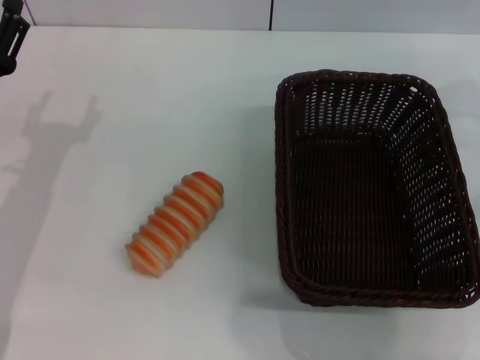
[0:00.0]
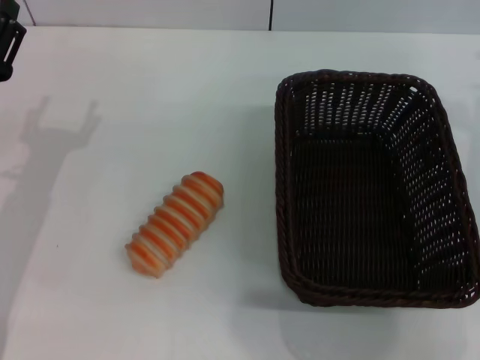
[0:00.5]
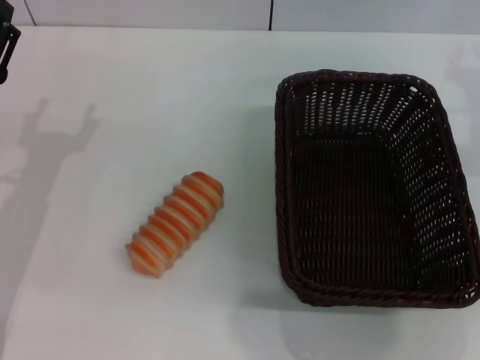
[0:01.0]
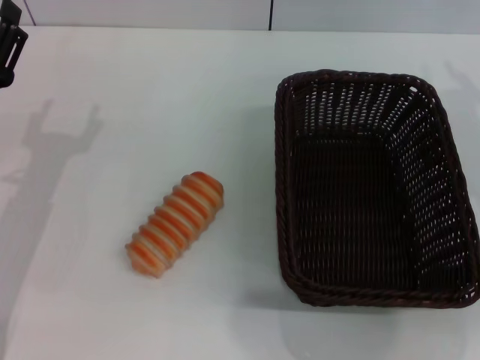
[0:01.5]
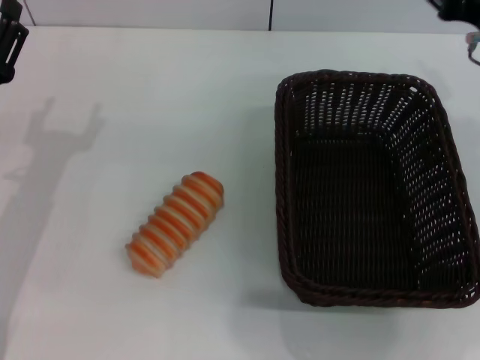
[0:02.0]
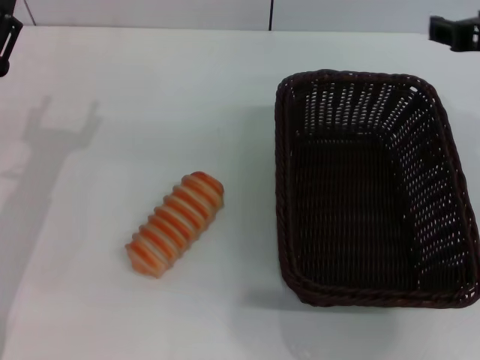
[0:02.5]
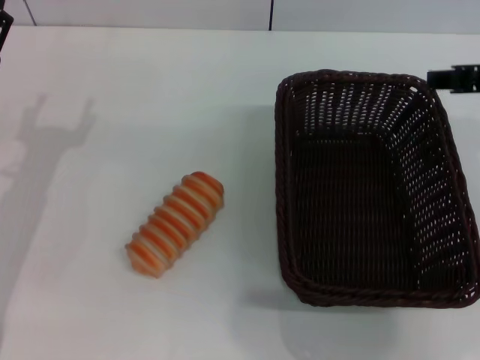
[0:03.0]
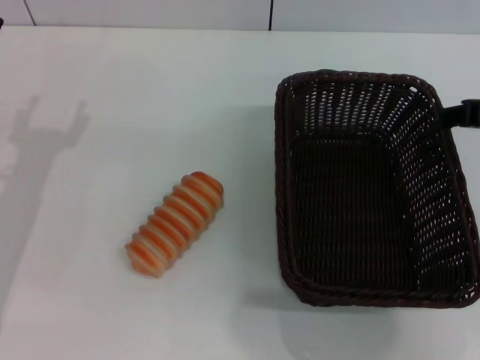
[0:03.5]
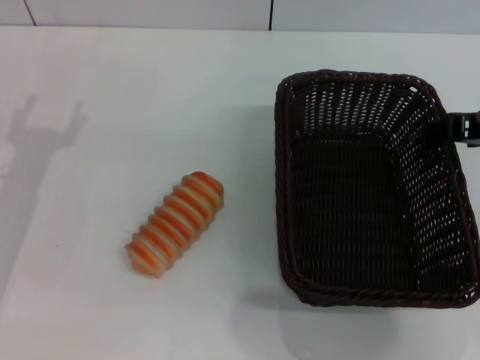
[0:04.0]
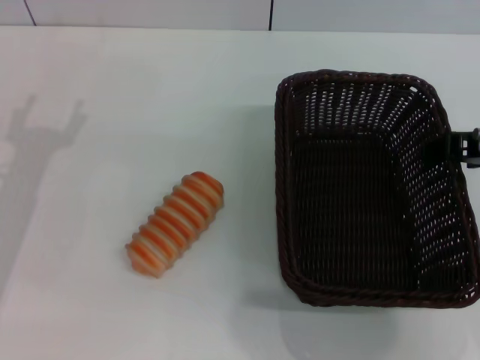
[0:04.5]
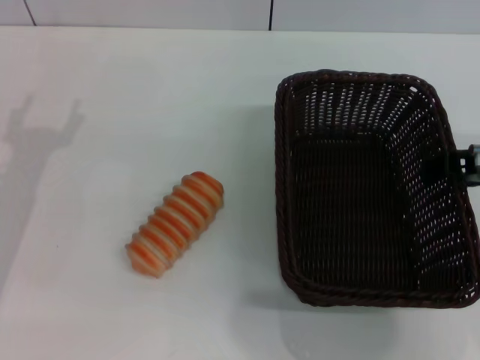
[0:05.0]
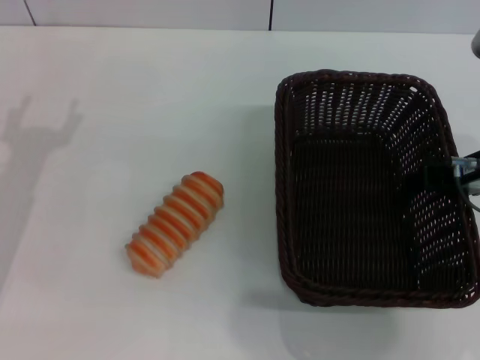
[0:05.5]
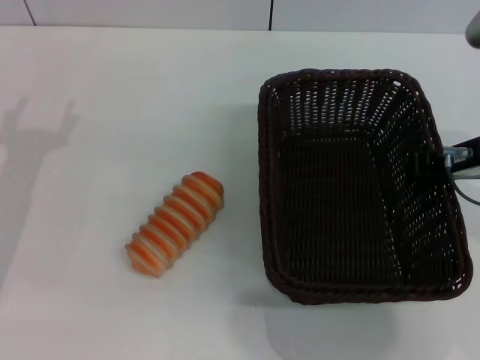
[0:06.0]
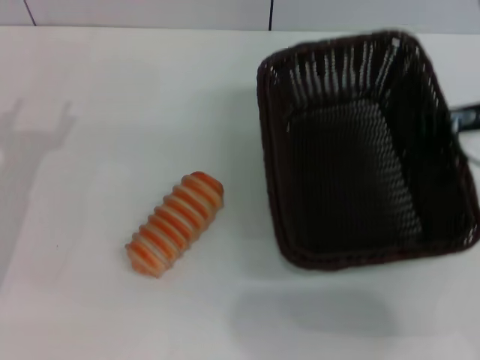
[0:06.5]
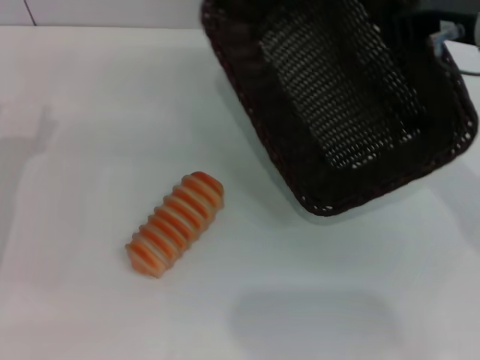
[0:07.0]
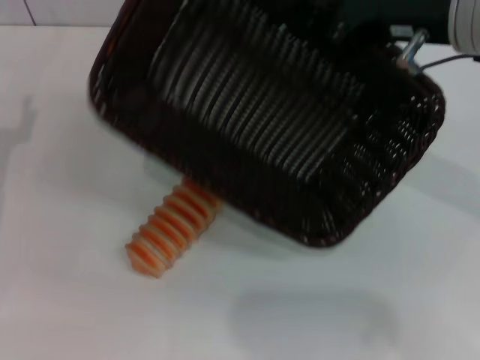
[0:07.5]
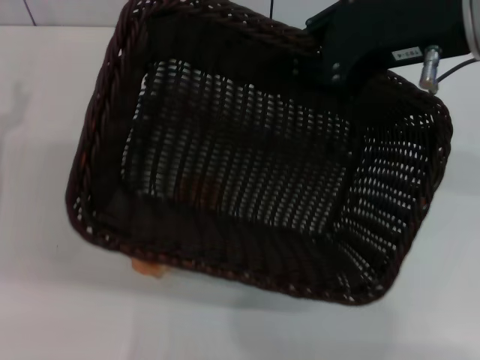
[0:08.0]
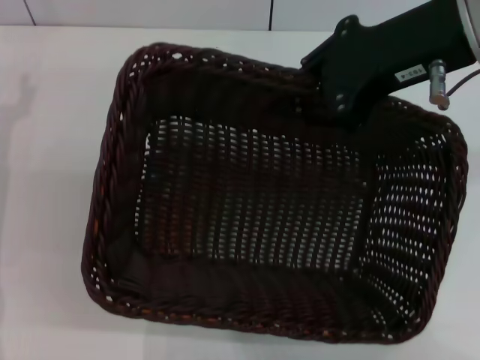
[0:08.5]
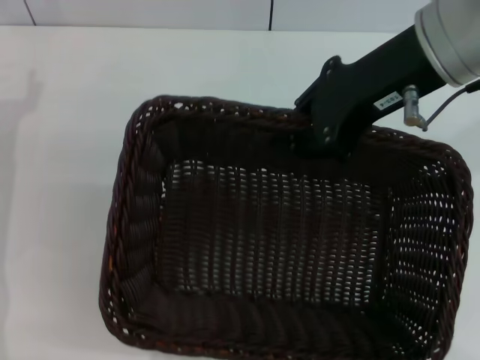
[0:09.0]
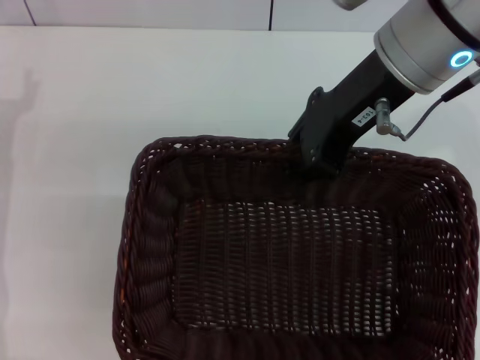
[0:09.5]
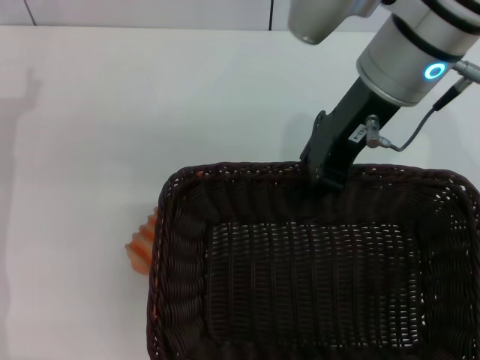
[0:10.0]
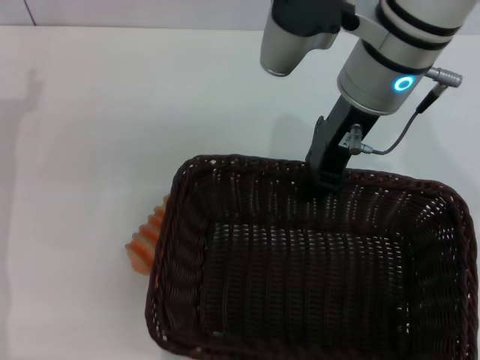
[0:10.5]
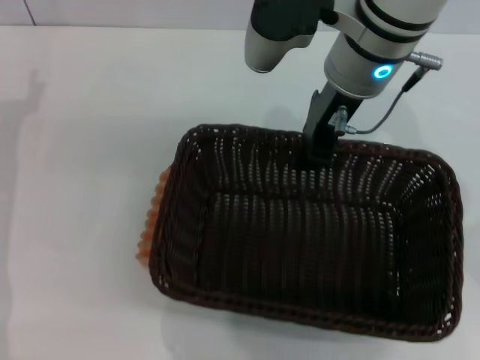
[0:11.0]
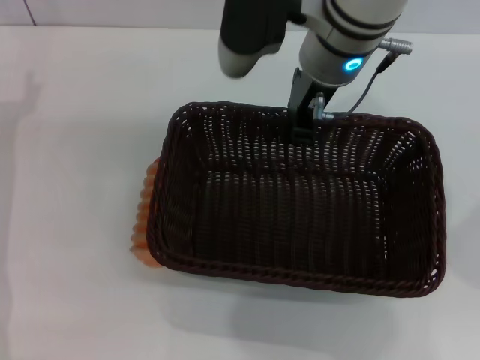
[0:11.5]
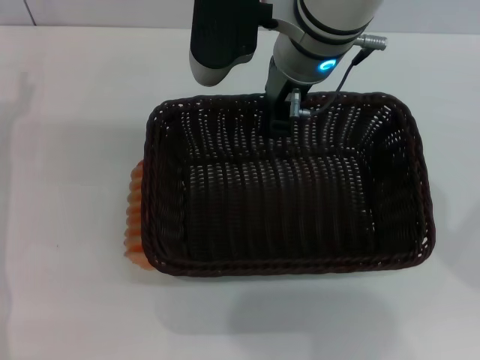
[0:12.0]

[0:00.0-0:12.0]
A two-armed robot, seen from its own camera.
Step, 0:00.0 to 0:07.0: Pick up the dark basket with the right gripper.
0:00.0 to 0:02.0: The right gripper is displaced backward and to the left by some 10 cm, and opens up.
0:02.0 to 0:04.0: The right gripper ends up about 5 cm from where it was.
0:04.0 to 0:06.0: The right gripper closes.
0:06.0 to 0:08.0: The right gripper goes roughly 10 cm upward, and closes up.
0:08.0 to 0:10.0: The right gripper goes approximately 5 cm to the left.
0:10.0 to 0:12.0: The right gripper shifts about 5 cm to the left.

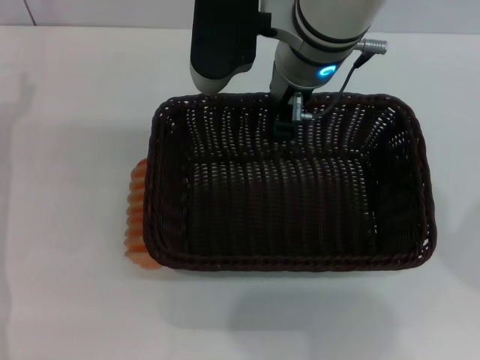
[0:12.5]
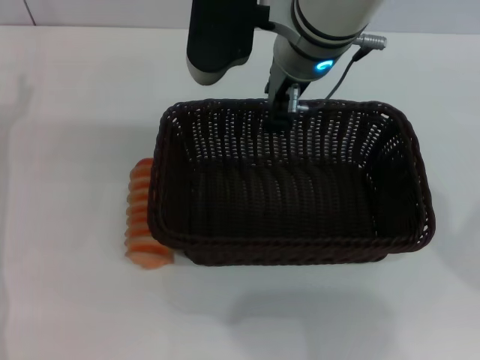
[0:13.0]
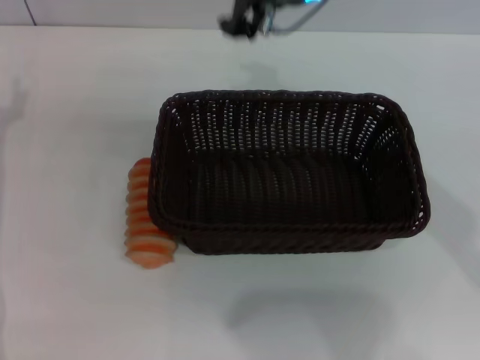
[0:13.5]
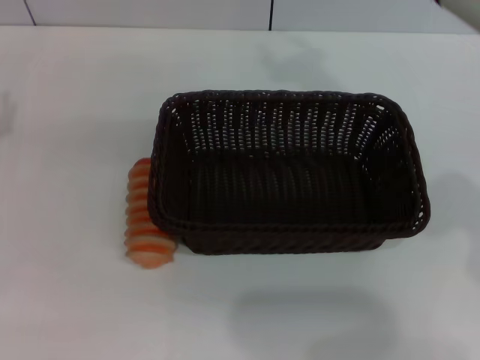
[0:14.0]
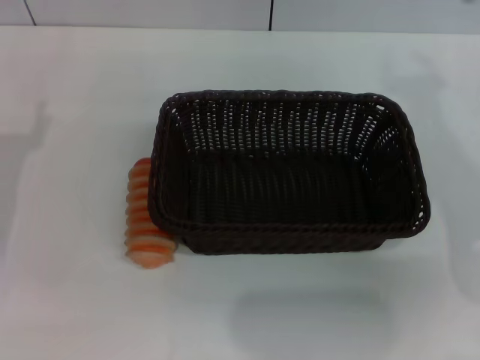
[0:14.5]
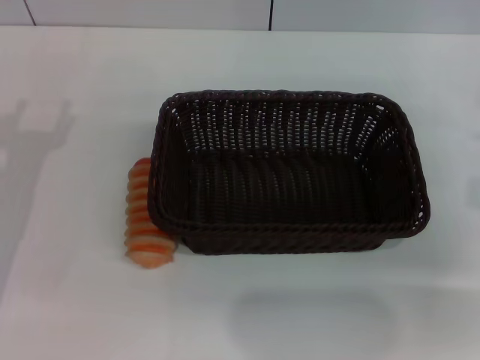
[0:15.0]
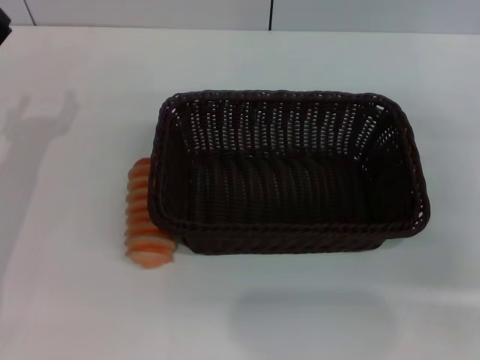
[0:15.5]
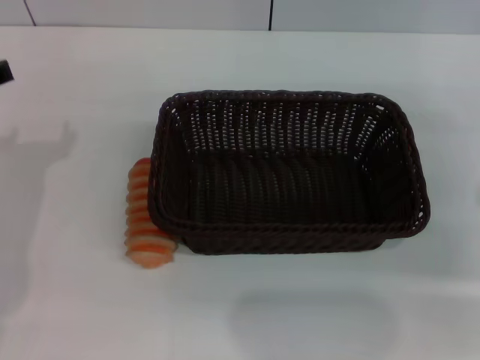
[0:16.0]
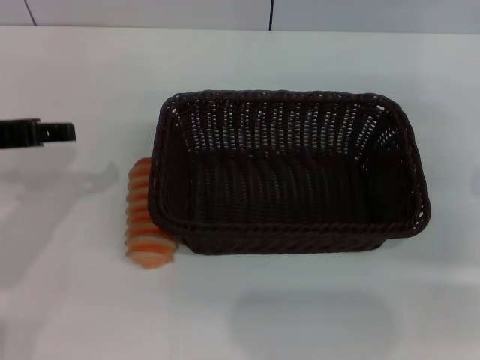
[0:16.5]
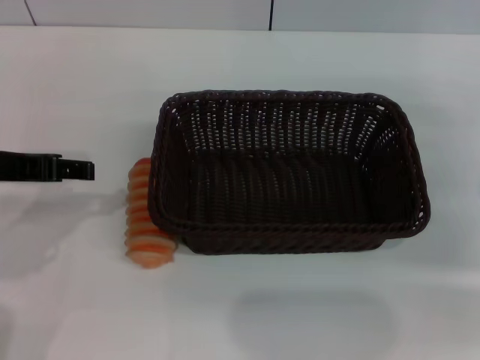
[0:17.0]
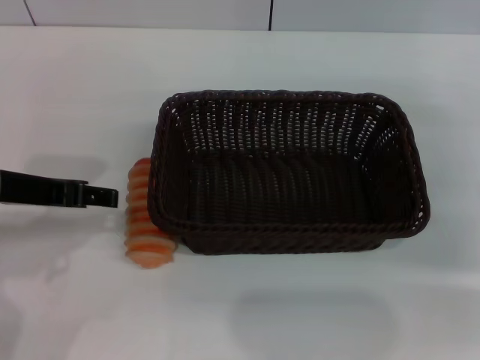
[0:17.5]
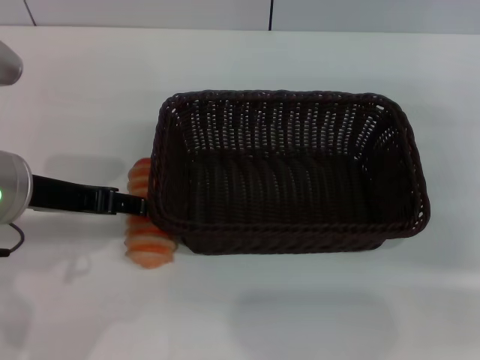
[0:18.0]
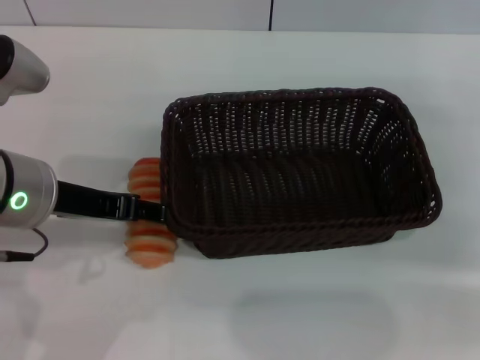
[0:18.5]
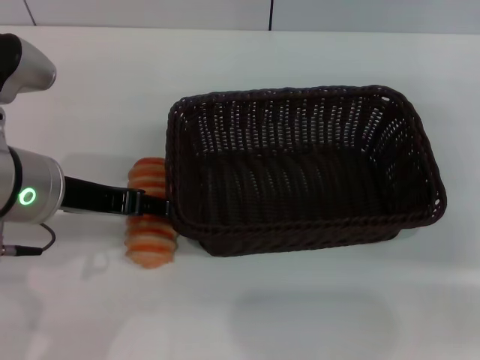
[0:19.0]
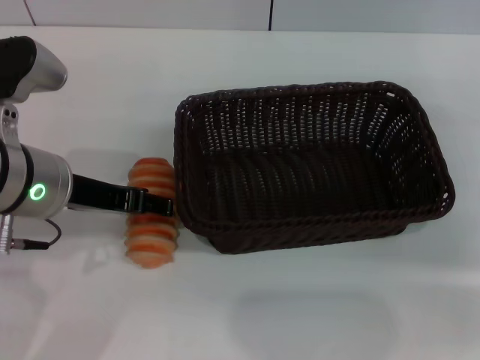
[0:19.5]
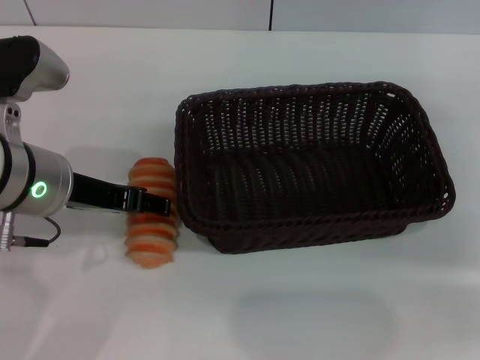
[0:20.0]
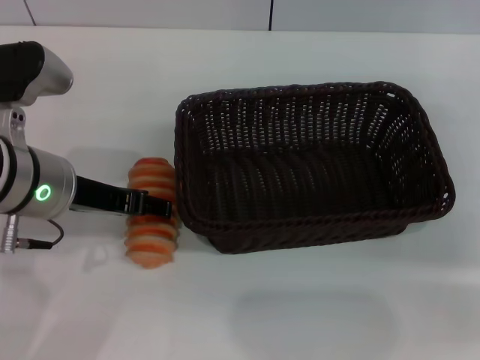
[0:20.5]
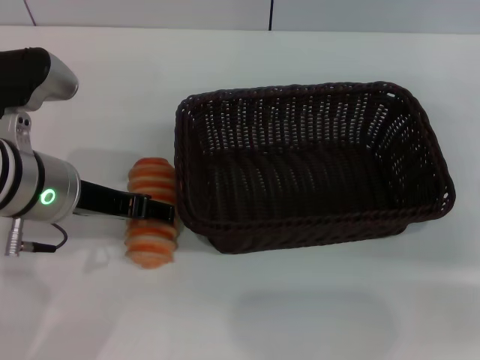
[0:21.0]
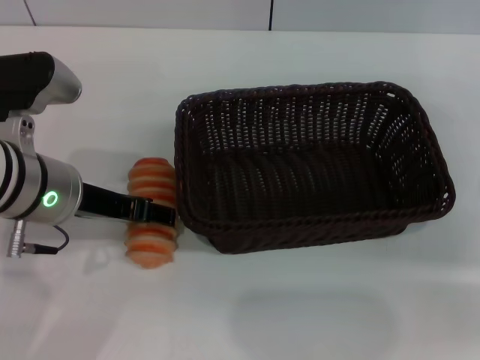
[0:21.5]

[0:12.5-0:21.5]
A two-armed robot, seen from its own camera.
0:12.5 to 0:14.5: The left gripper ends up about 5 cm from where it was; the right gripper moves to the right, about 20 cm.
0:14.5 to 0:17.0: The right gripper travels to the right and downward by some 10 cm; the left gripper travels upward and to the right by roughly 15 cm.
0:17.0 to 0:19.5: The left gripper shifts some 5 cm to the right.
0:19.5 to 0:21.5: There are only small adjustments of the grippers.

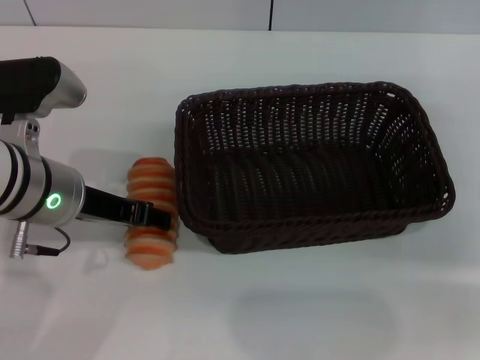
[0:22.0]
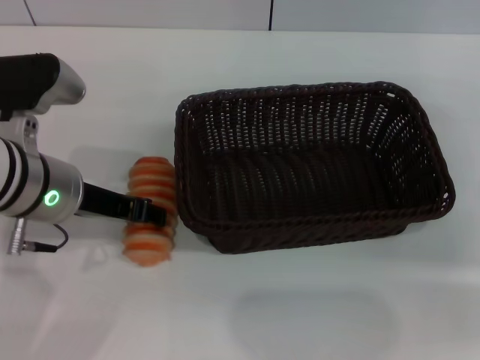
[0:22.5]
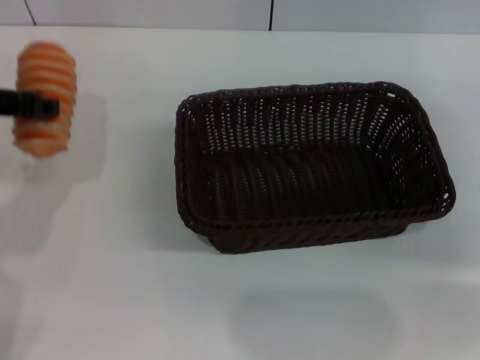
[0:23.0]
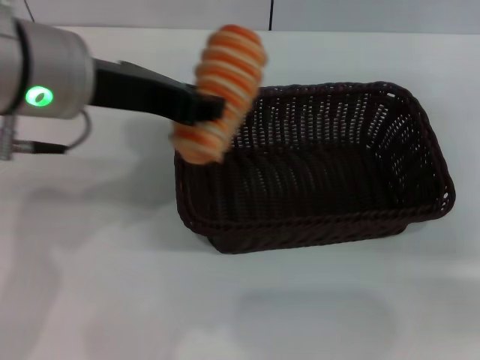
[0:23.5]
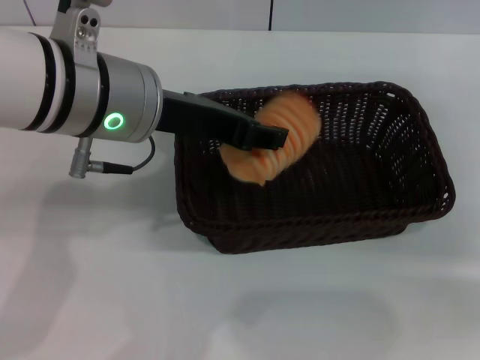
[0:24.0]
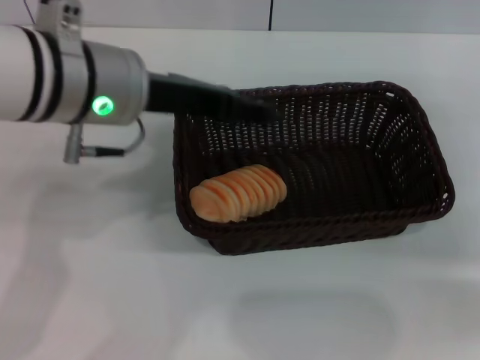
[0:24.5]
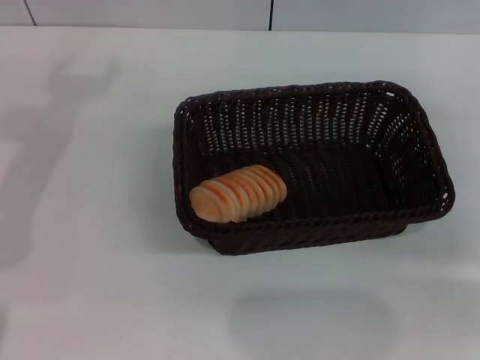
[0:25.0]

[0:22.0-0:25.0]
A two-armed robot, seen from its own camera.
Step, 0:23.0 to 0:24.0: Place the long bread into the dark basket with the left gripper.
0:22.0 to 0:23.5: The left gripper heads upward, covering approximately 10 cm, and closes its fingers.
0:23.5 to 0:25.0: The left gripper travels to the left and forward by about 15 cm, and opens.

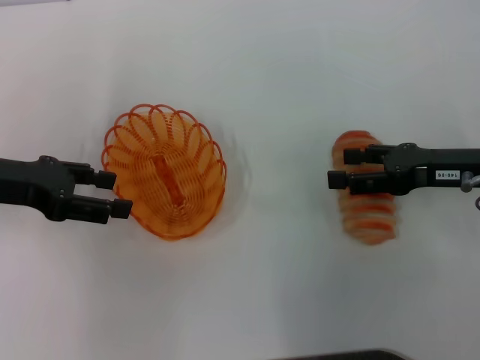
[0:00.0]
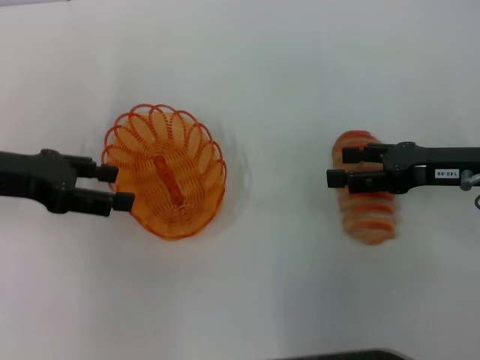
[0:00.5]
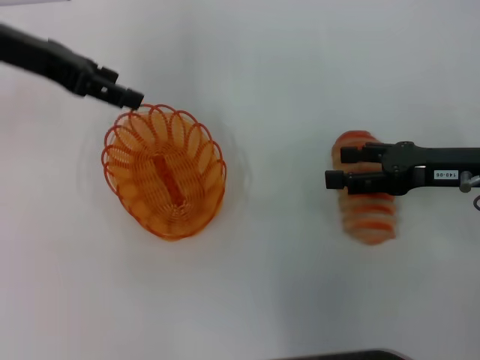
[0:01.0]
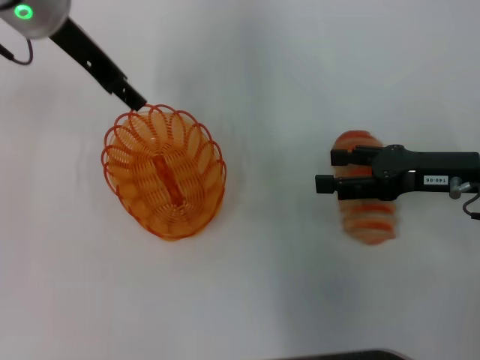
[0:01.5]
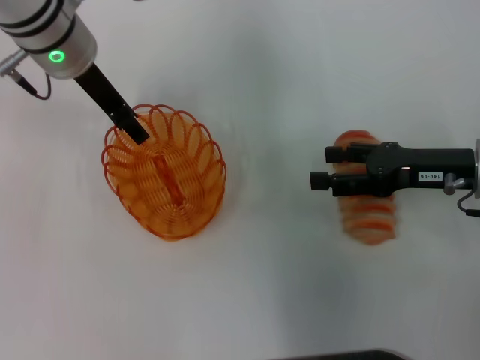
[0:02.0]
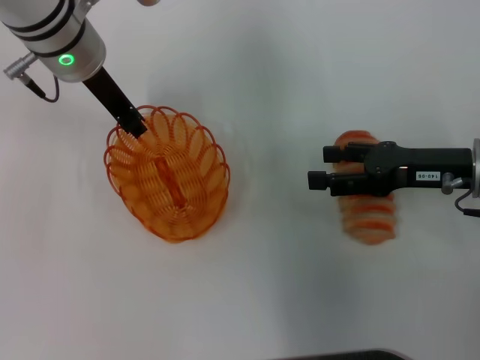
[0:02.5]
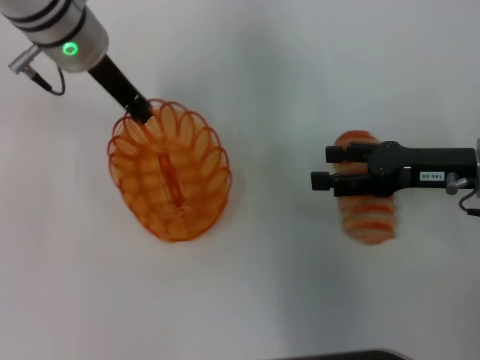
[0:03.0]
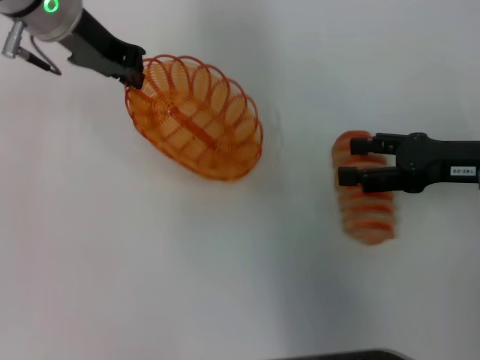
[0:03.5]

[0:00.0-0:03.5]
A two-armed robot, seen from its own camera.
Step, 0:00.0 to 0:03.0: Pick up the basket with the left gripper.
0:00.0 to 0:02.0: The left gripper is displaced to the right and forward by roughly 20 cm.
0:02.0 to 0:03.5: The left gripper closes.
